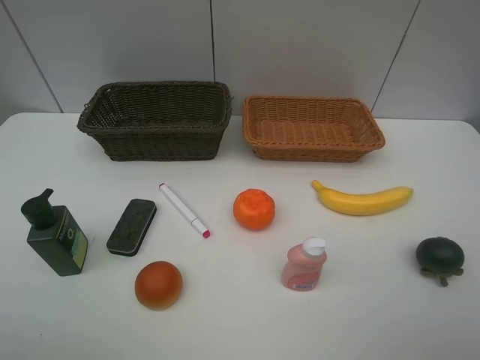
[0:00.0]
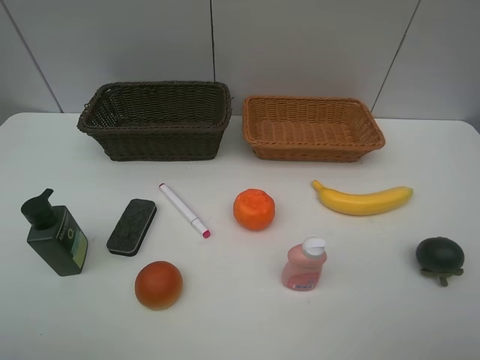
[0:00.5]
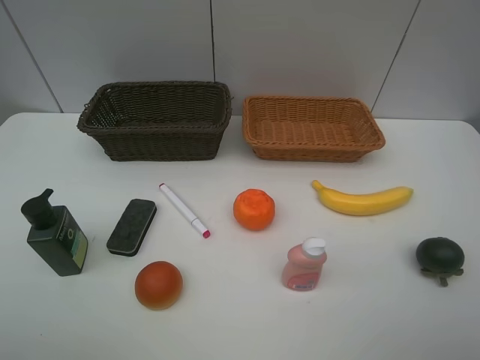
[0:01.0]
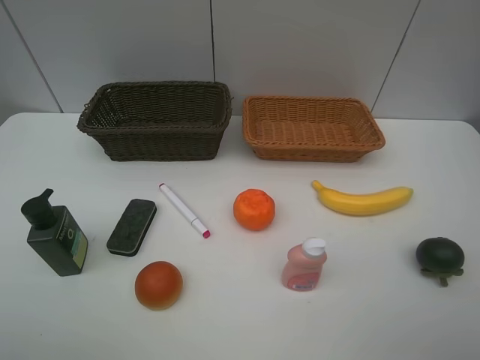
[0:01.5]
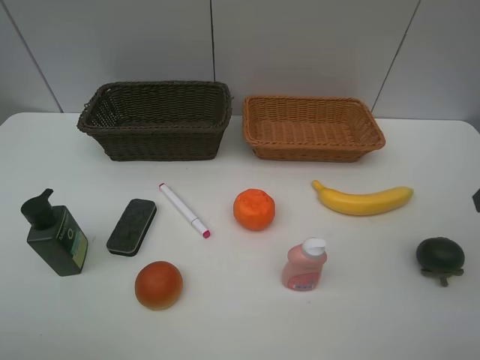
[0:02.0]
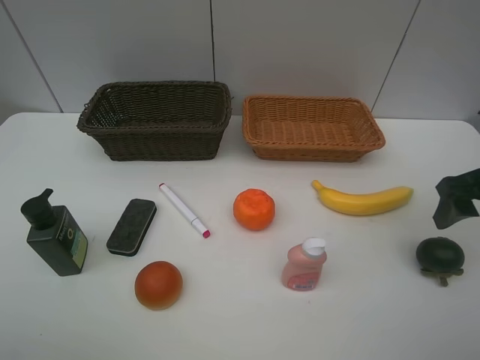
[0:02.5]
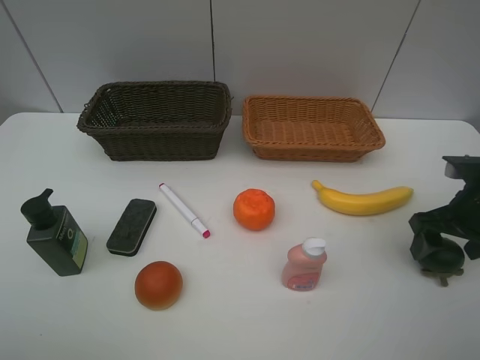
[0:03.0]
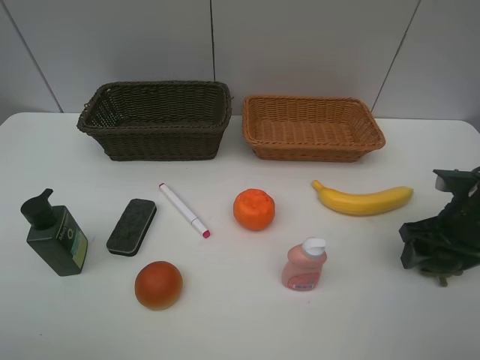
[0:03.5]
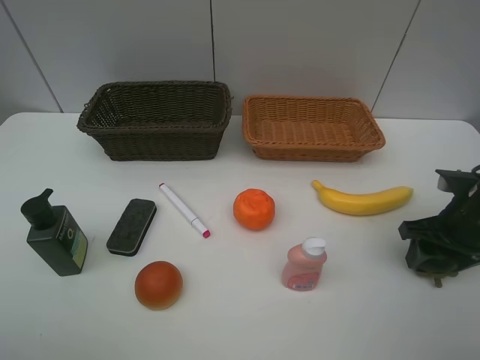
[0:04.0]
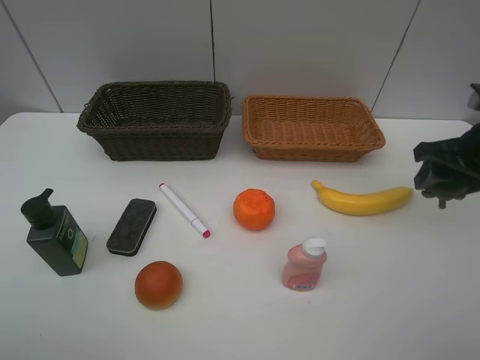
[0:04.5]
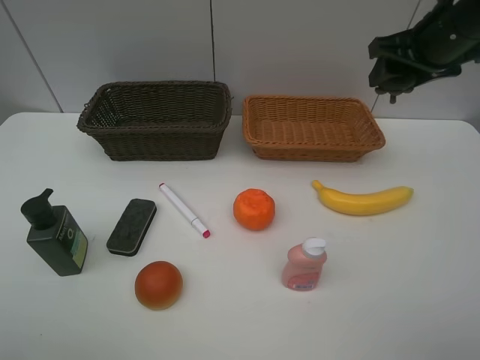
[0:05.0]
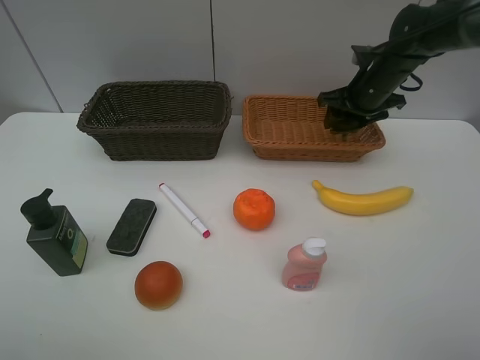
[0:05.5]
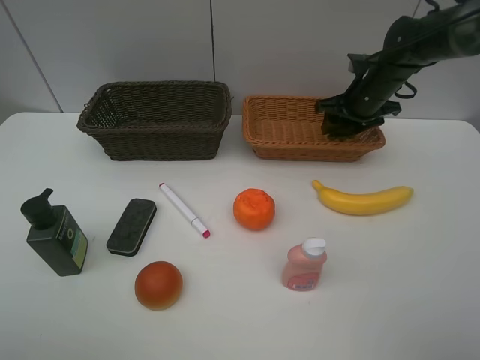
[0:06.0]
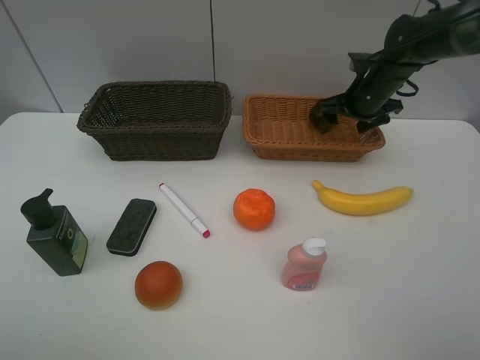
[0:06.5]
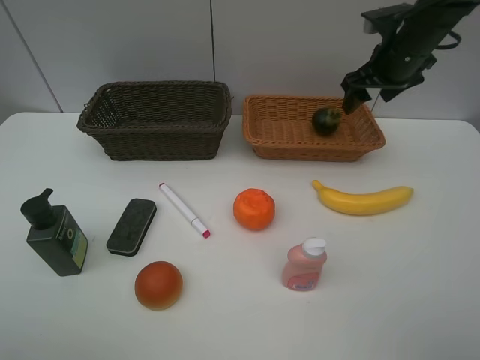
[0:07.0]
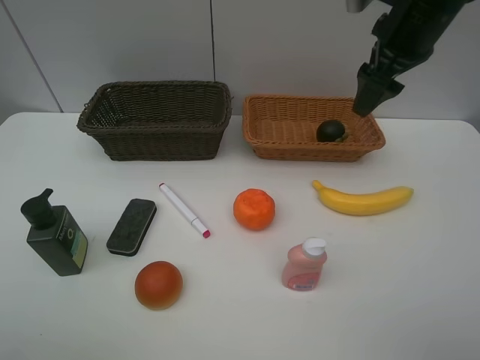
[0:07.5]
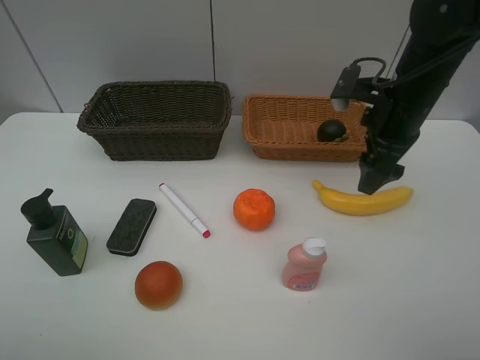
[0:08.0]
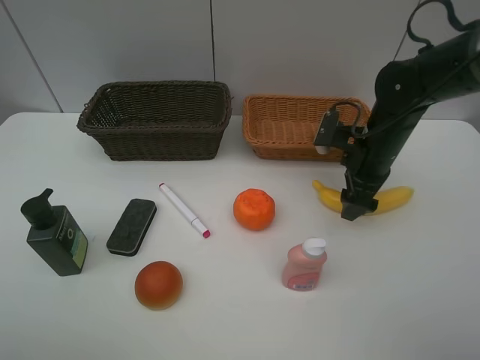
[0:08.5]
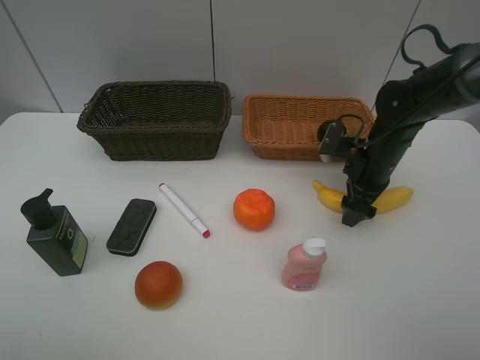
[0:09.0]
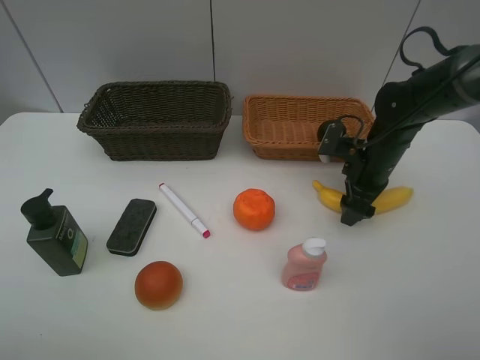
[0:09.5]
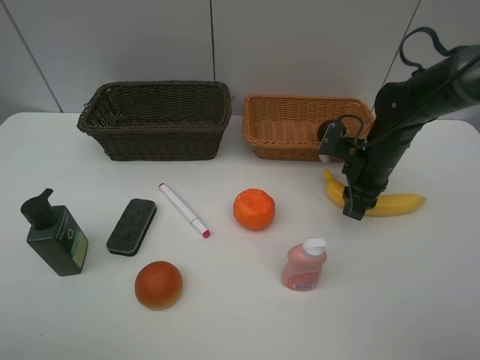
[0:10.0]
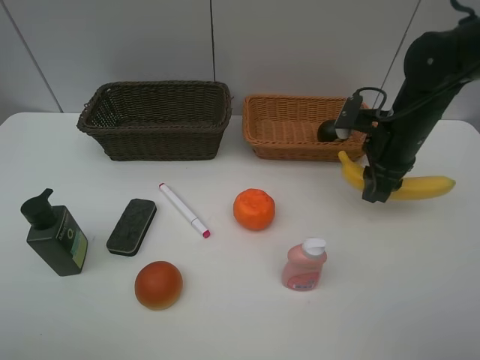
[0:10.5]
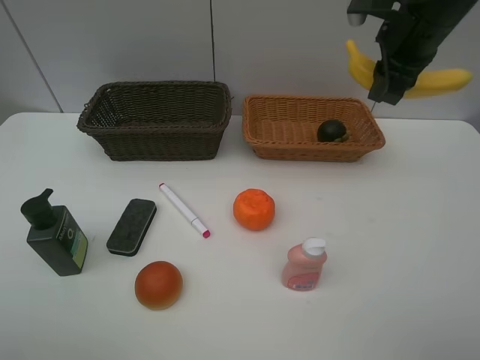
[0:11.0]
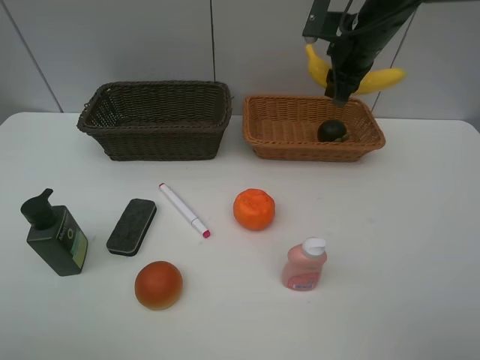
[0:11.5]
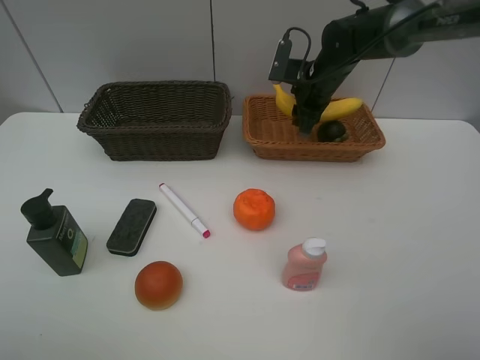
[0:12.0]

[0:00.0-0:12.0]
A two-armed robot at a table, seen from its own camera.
Task of the whole recording: Place multiple objects separately in different baskets.
Step, 0:00.0 to 0:04.0: Pick up the mangosteen with right gripper.
Step, 0:04.5 to 0:06.5: Place the mangosteen in the light basket with right gripper.
Step, 0:07.0 to 0:10.0: Pick up banana with right gripper.
0:02.0 to 0:04.0: The right gripper shifts some 15 cm downward and forward.
0:04.0 to 0:06.0: The right gripper travels forward by some 20 cm.
0:06.0 to 0:08.0: The right gripper travels backward and upward by some 15 cm.
0:08.0 to 0:10.0: The right gripper moves downward, about 10 cm, and closes its fingers.
0:10.0 to 0:12.0: The right gripper goes approximately 15 cm forward and to the left, and reaches roughly 20 cm upward, then returns.

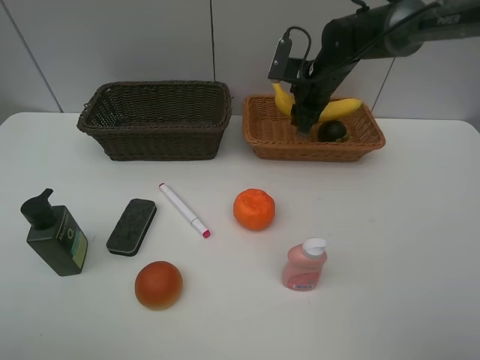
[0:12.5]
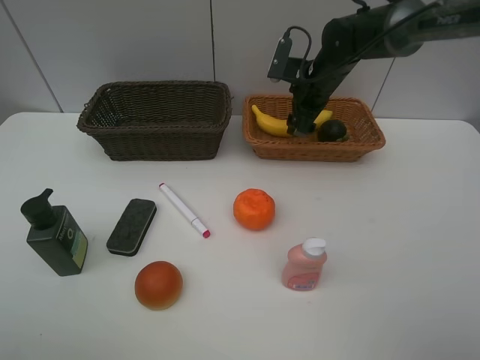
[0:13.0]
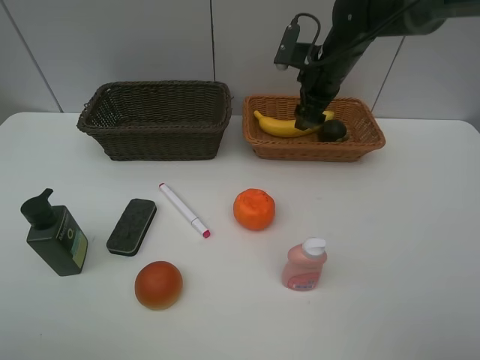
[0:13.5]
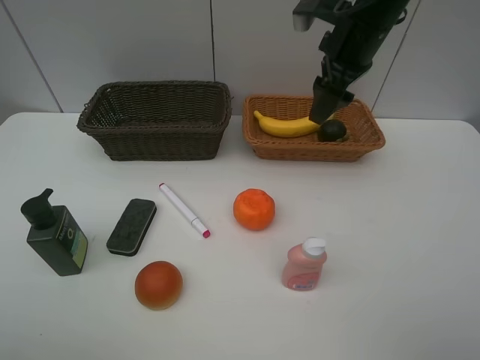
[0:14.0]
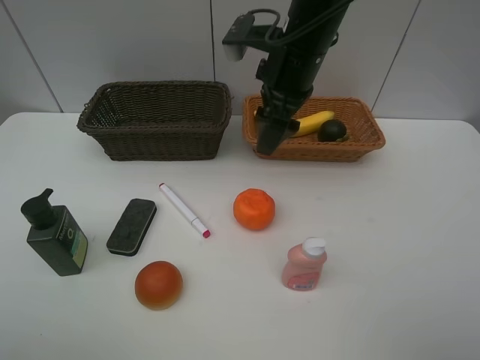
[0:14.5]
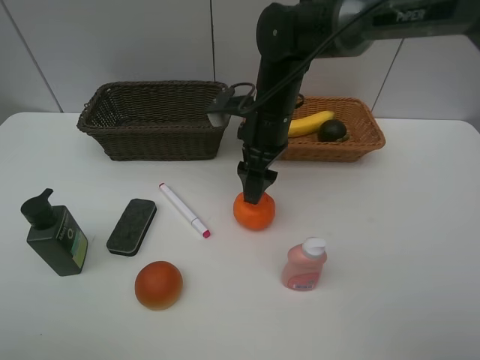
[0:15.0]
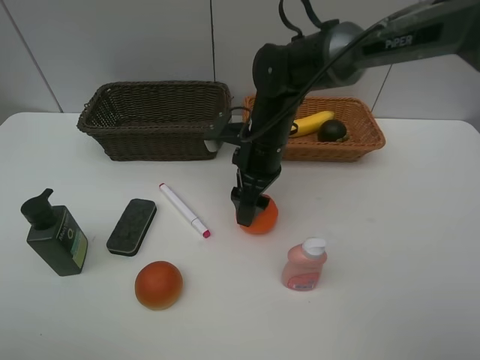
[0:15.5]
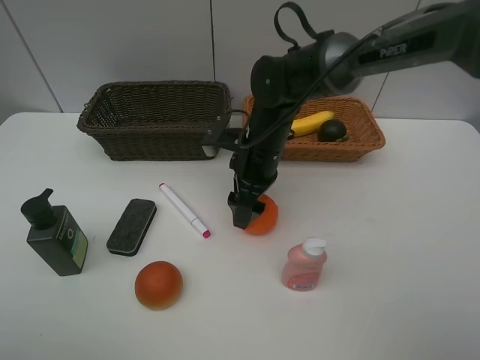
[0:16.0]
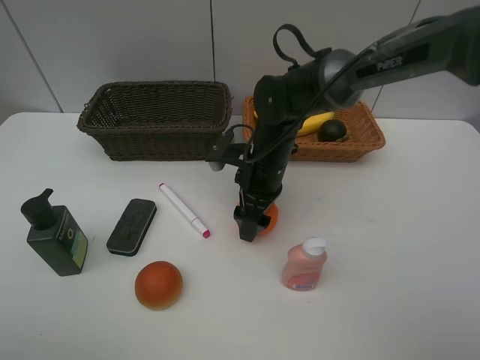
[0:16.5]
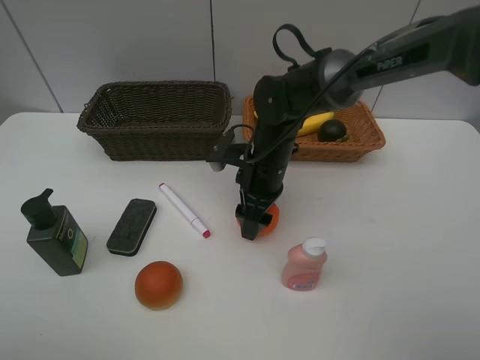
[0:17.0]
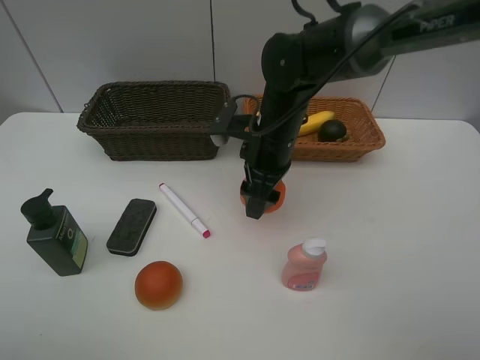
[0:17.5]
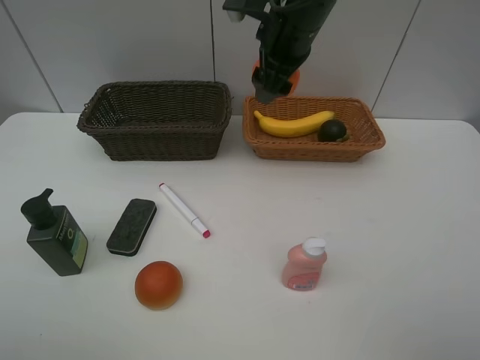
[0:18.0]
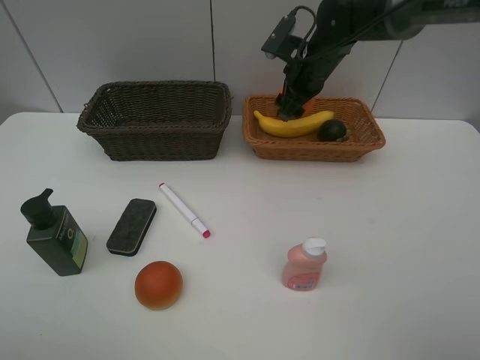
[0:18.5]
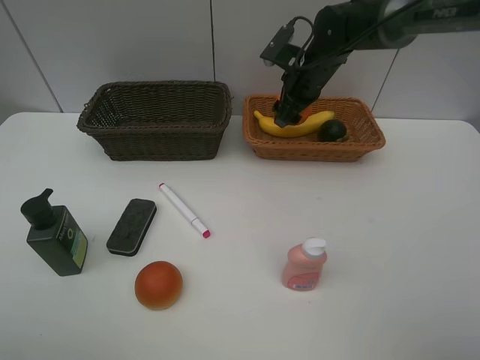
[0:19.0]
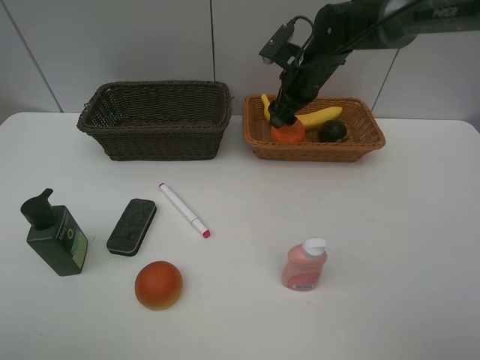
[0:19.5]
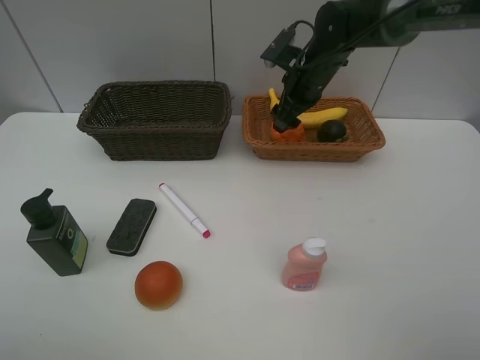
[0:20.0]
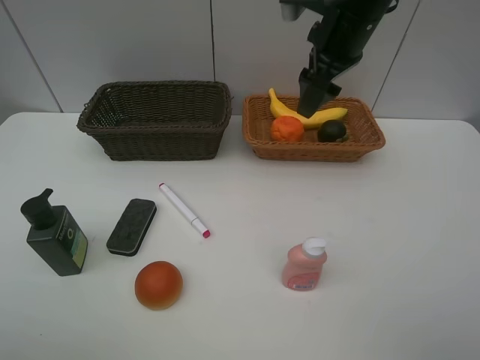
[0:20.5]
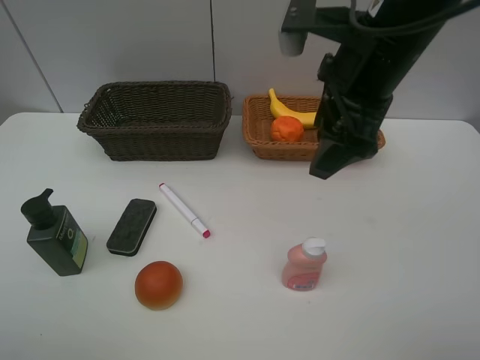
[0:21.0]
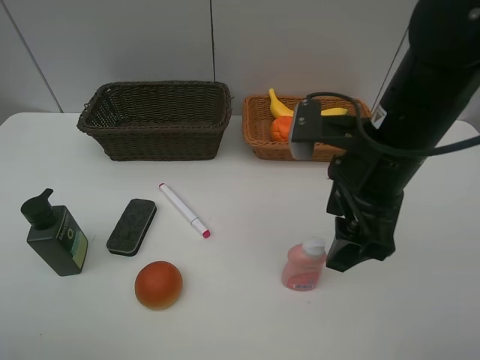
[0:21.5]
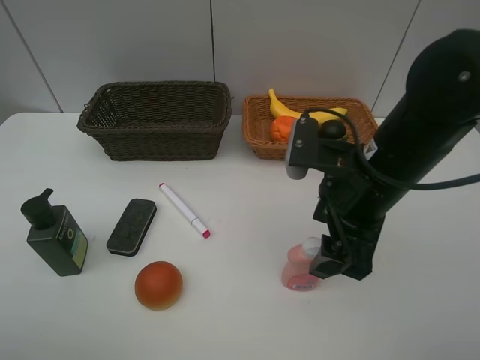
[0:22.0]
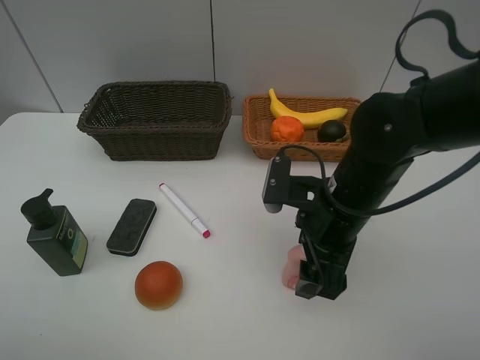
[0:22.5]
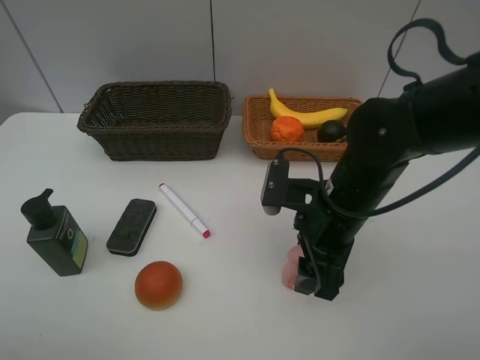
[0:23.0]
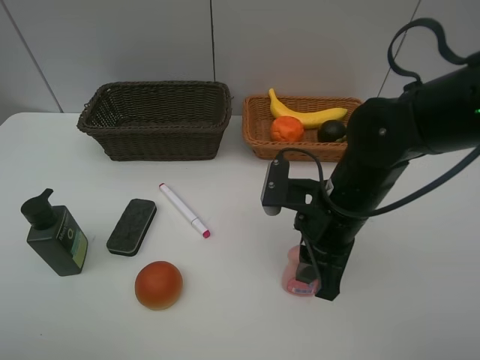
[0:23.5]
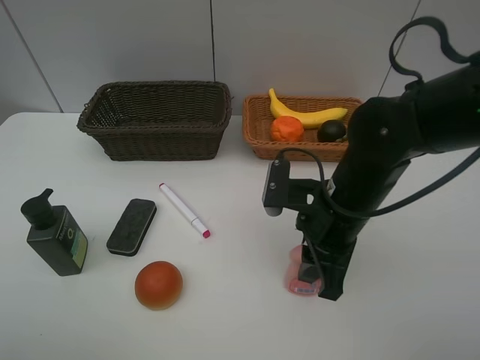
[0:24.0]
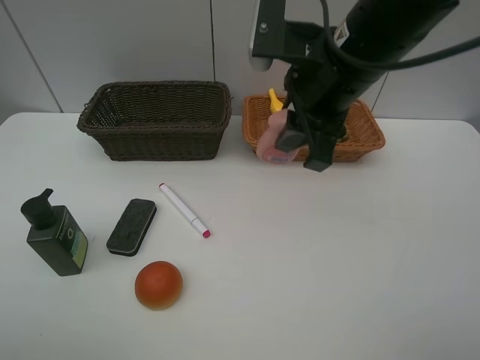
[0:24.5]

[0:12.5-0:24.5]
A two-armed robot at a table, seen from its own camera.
Task of the whole recording: Place multiple objects separately in different baskets.
Step, 0:13.0 to 0:17.0: Pick up the orange with right gripper.
Step, 0:17.5 to 0:19.5: Place the orange in the light basket with right gripper.
Step, 0:20.0 to 0:24.0: Pick up the laundry detergent with right gripper.
0:12.5 to 0:14.5: The right gripper travels backward, upward and to the left by about 15 cm, and opens up.
0:14.5 to 0:16.5: The right gripper heads downward, covering about 15 cm.
0:16.5 to 0:18.5: The right gripper goes some 20 cm forward, upward and to the right.
0:18.5 to 0:20.5: The right gripper shifts roughly 15 cm upward and backward.
0:20.5 to 0:22.5: The right gripper is displaced backward and downward by some 20 cm.
0:22.5 to 0:24.5: The right gripper is displaced upward by approximately 15 cm, and closes its fingers.

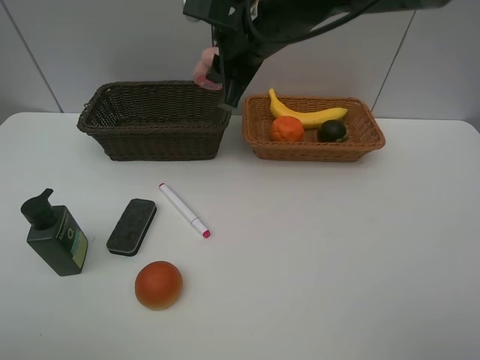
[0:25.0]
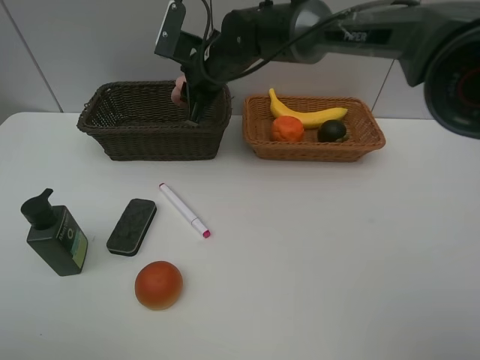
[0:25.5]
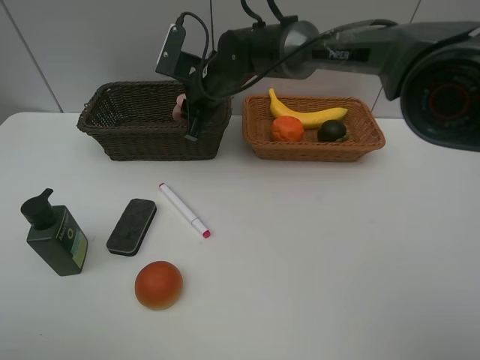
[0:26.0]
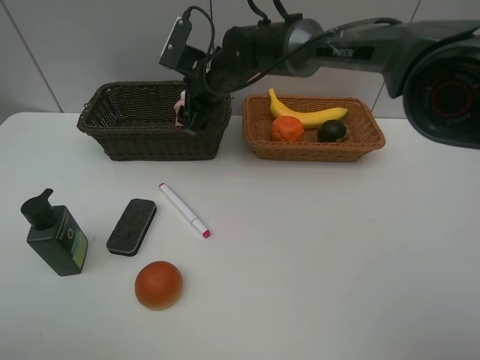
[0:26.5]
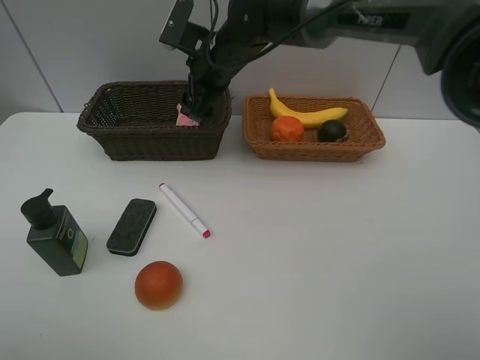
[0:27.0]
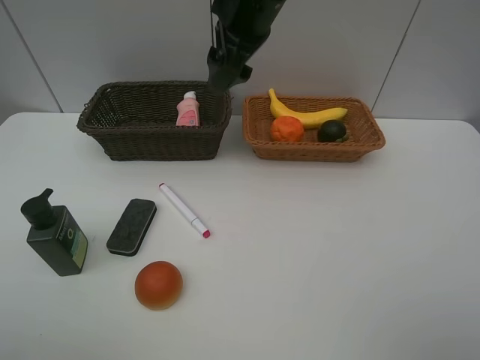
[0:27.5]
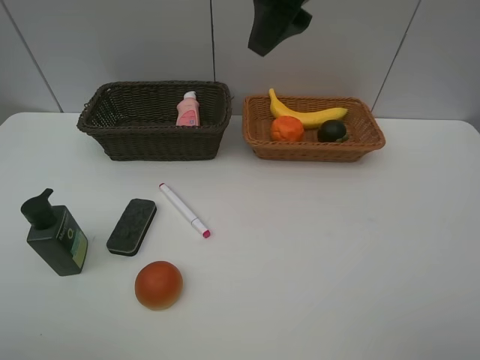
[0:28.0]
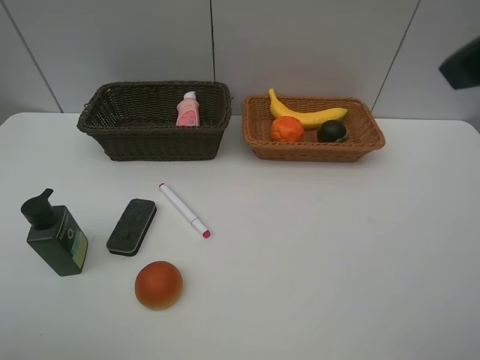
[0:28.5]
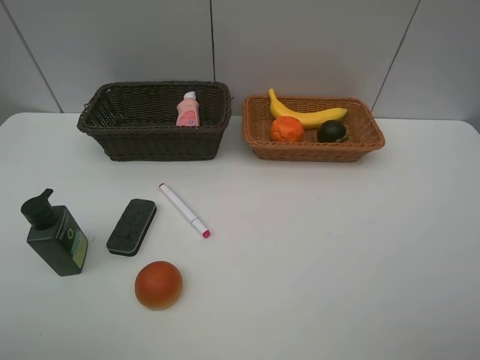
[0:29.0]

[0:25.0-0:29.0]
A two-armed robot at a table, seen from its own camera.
Task of the whole recording: Place multiple objects separately in different baskets.
0:25.0 to 0:27.0: The right gripper moves forward and downward, about 10 cm, and opens up.
0:27.0 to 0:29.0: The right gripper is displaced backward and to the right by about 50 cm.
